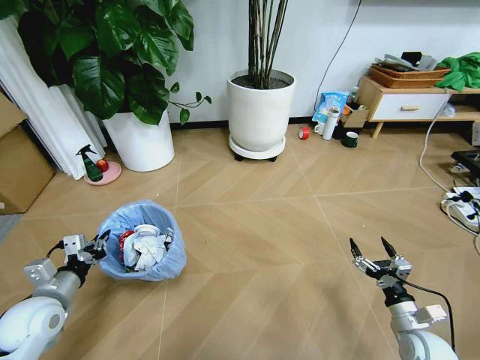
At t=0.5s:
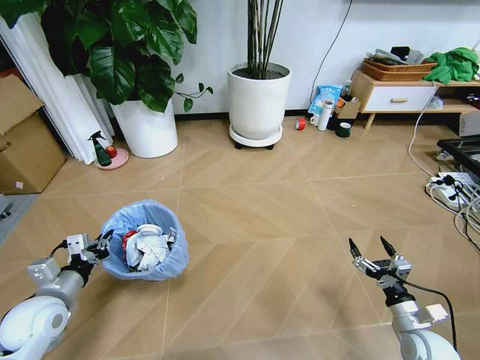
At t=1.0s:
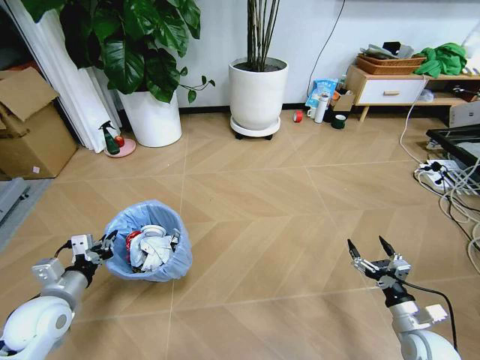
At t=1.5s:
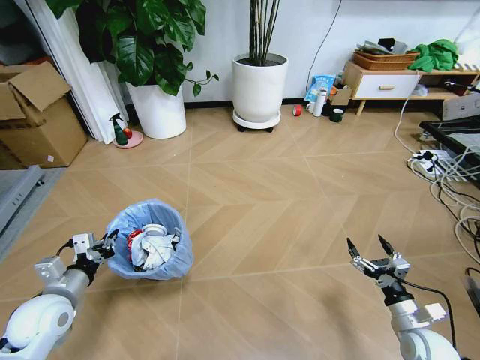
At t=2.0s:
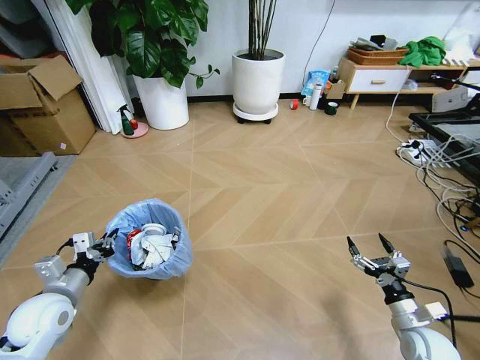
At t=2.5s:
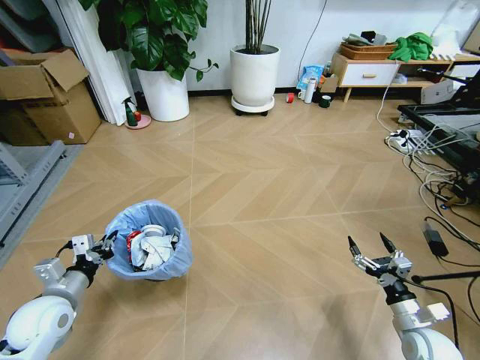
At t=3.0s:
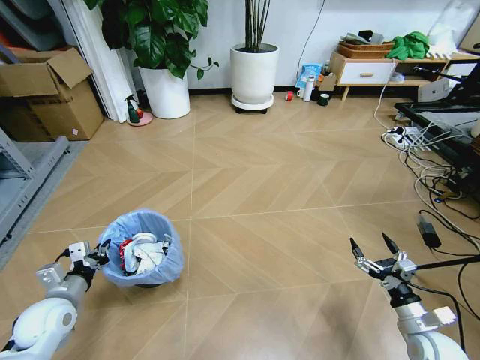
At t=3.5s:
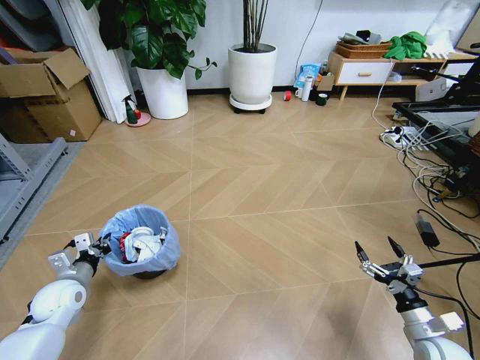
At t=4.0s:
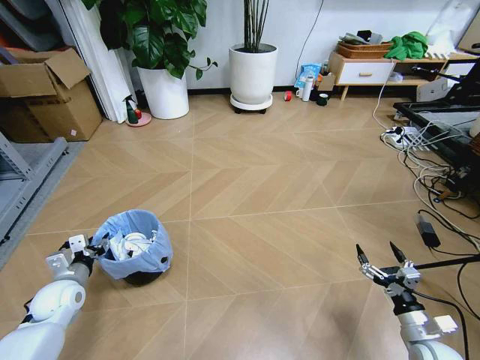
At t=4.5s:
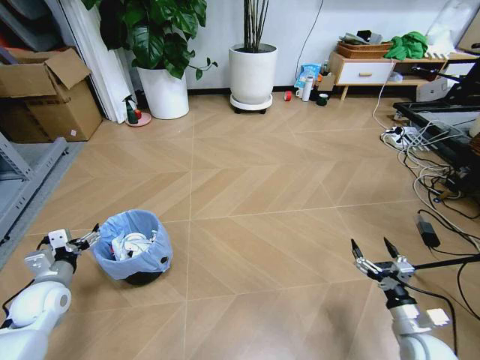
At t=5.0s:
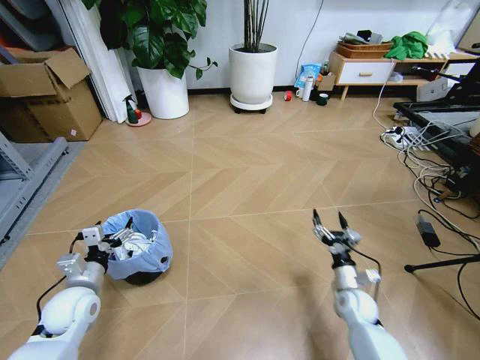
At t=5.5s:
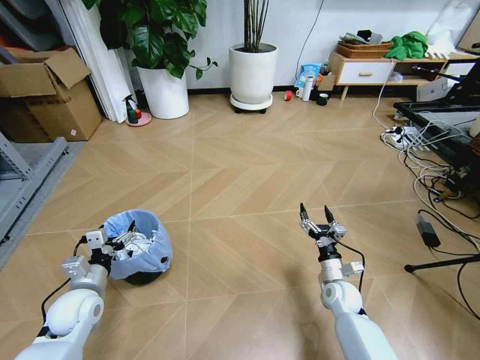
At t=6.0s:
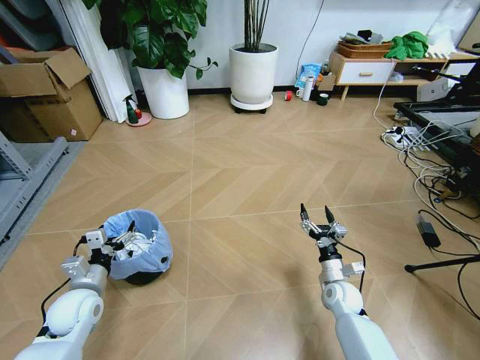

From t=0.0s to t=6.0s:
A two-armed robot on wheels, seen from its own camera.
Task of the whole recording: Pick up the trash bin and place the garbage on the floor into it.
From t=2.0s to t=4.0s: The left gripper goes approximately 10 cm downward and forward, and opens.
From t=4.0s to t=6.0s: The right gripper is displaced forward and to the left by some 20 cm; the left gripper moves to the right, about 5 cm, and opens its fingers.
